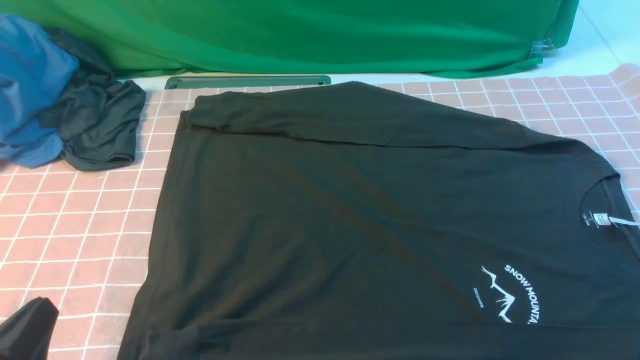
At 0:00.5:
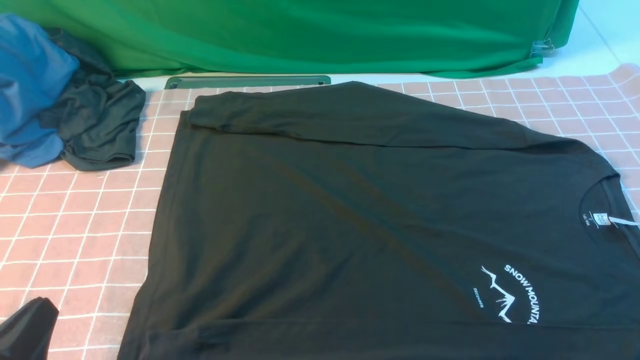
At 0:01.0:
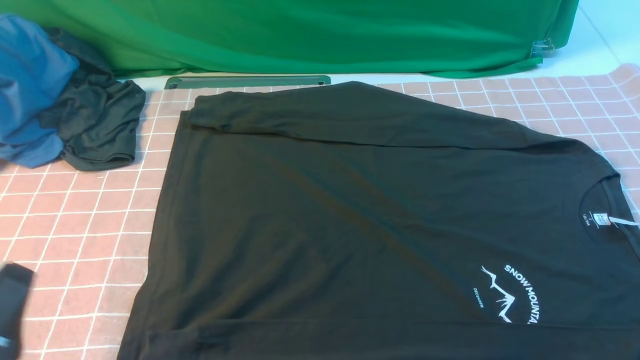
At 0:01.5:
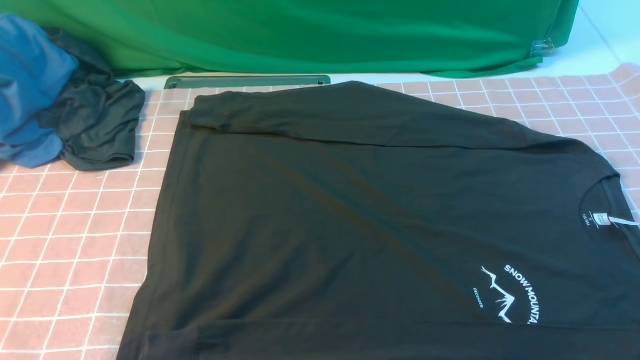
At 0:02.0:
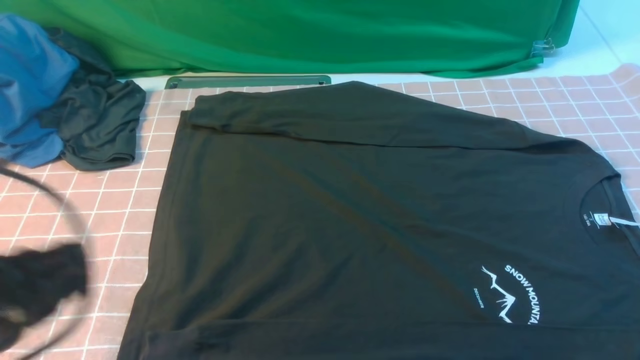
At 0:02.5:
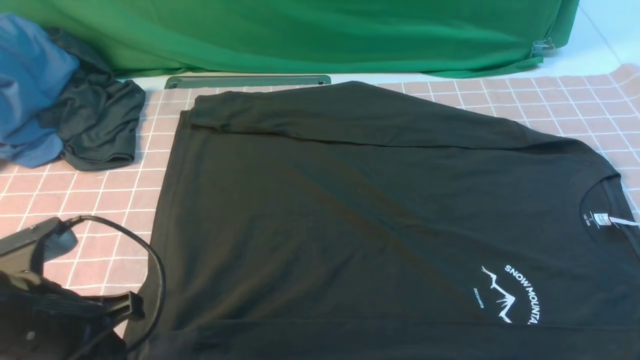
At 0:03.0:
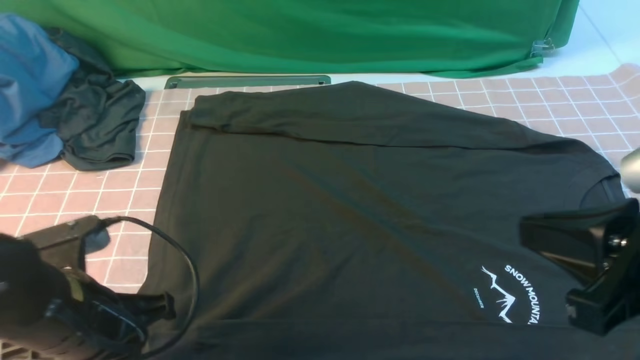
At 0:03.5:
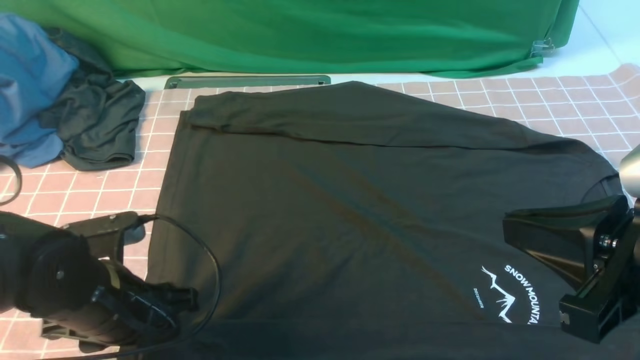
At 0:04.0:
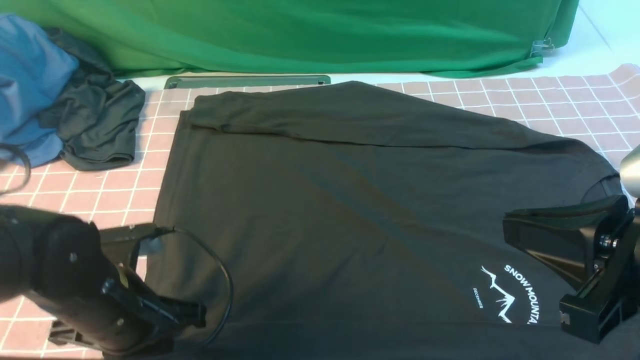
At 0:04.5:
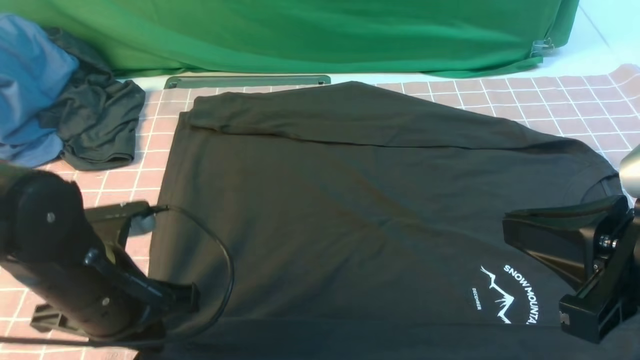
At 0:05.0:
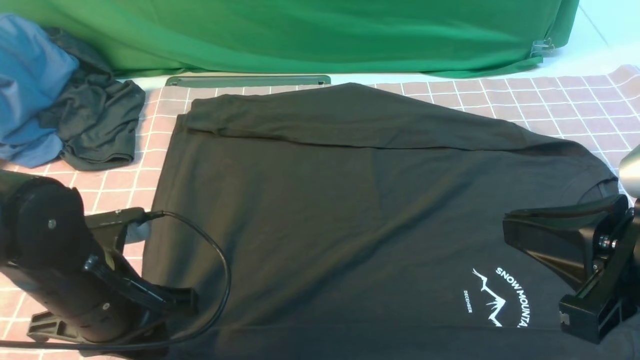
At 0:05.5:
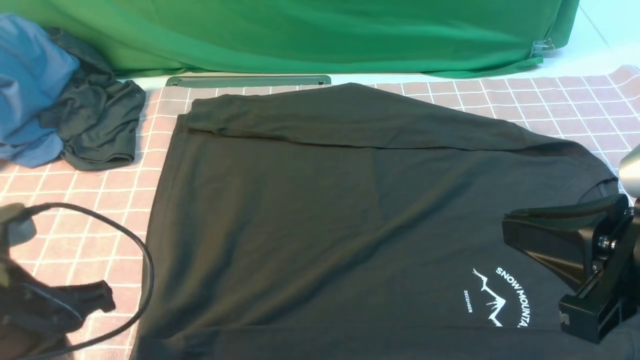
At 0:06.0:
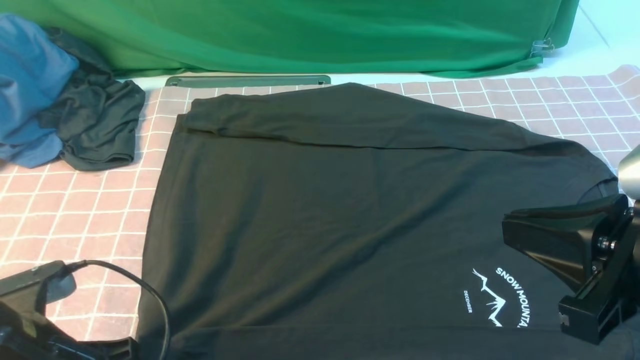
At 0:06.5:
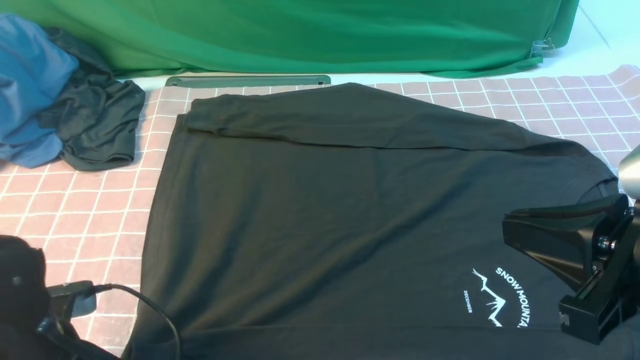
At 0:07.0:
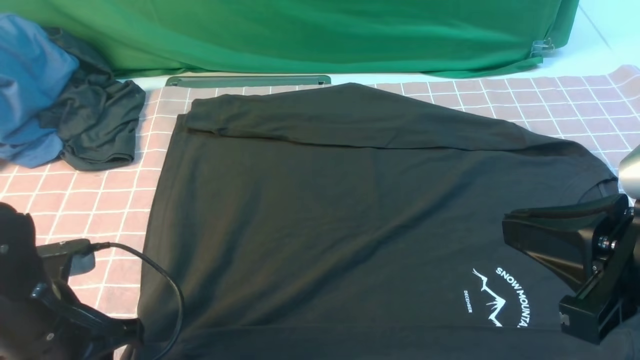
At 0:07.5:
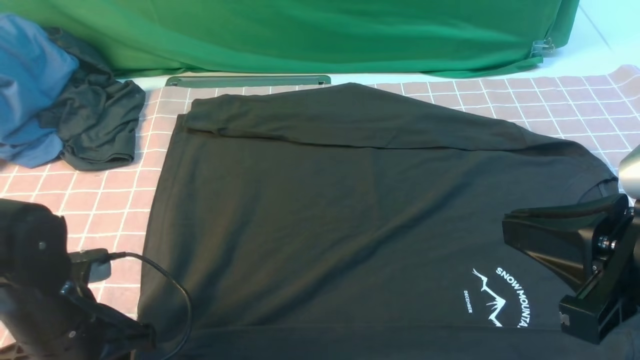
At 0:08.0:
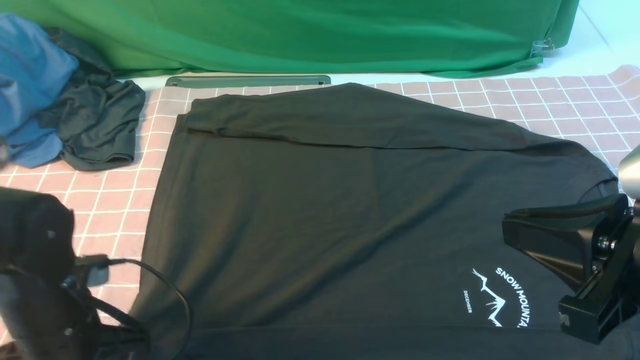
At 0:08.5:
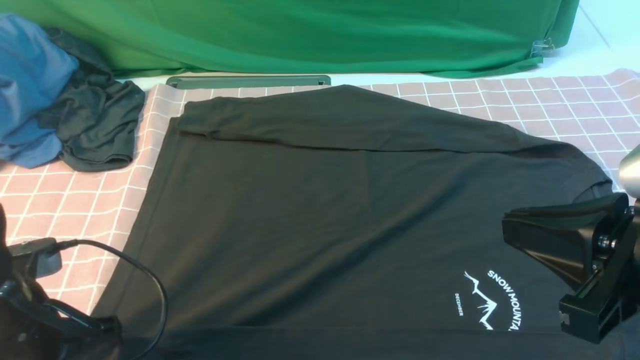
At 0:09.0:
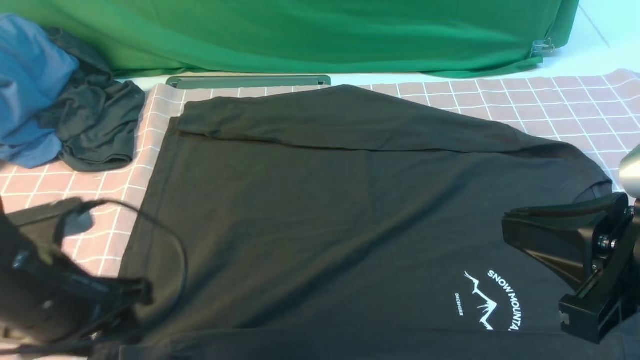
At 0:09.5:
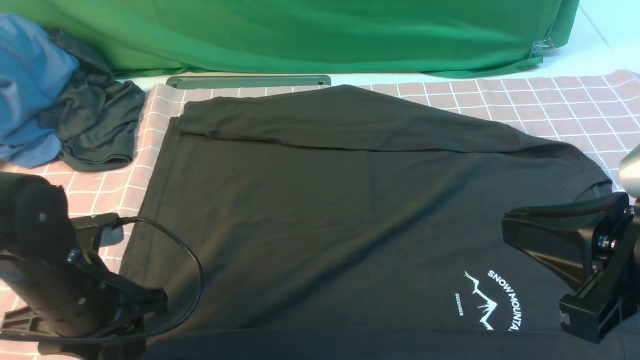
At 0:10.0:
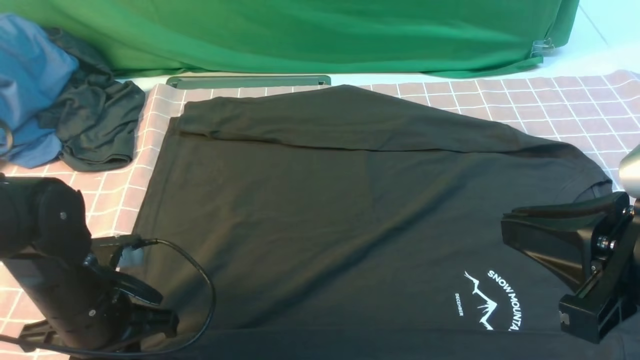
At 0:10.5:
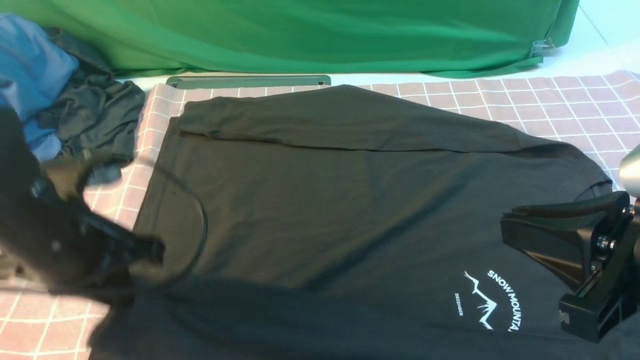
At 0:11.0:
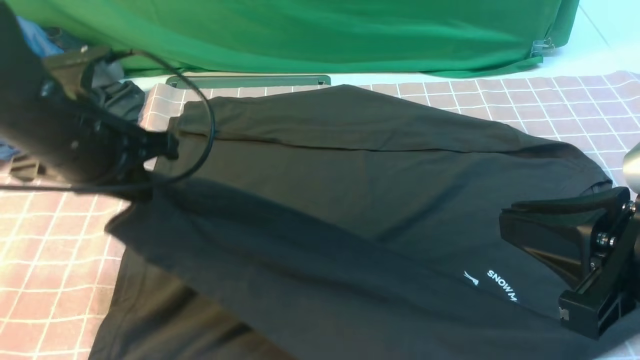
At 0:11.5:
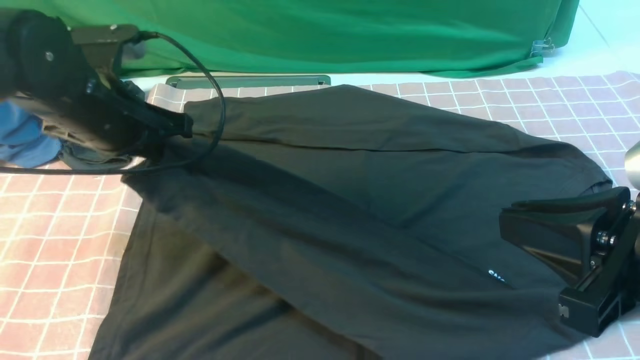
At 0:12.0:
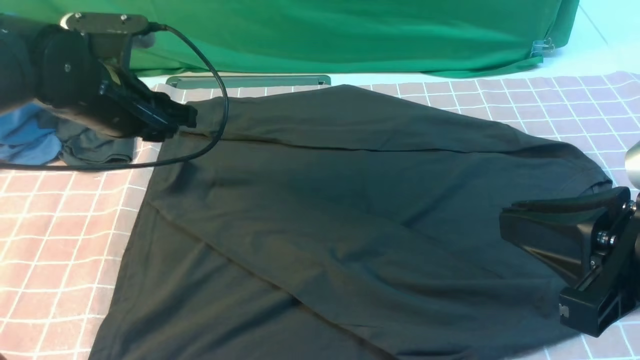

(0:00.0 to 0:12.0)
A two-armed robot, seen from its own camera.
Step, 0:00.0 - 0:10.0: use the left arm to clamp the cuff closest to it.
Step, 0:10.5 - 0:12.0: use the left arm to drag and place the cuff at the centered position on the left edge of the fabric.
0:00.0 - 0:02.0: The left gripper travels upward and forward by about 10 cm.
0:02.0 - 0:04.0: The right gripper travels to the left, forward and upward by some 15 cm. Meanwhile the left gripper is displaced downward and forward by approximately 15 cm, and opens, then closes once more.
0:04.0 - 0:06.0: The left gripper moves backward, some 5 cm.
0:06.0 - 0:08.0: The left gripper changes place by roughly 5 cm, and closes up.
0:08.0 - 0:10.0: The left gripper opens, then closes once more.
0:10.0 - 0:12.0: The left gripper goes some 15 cm forward and upward.

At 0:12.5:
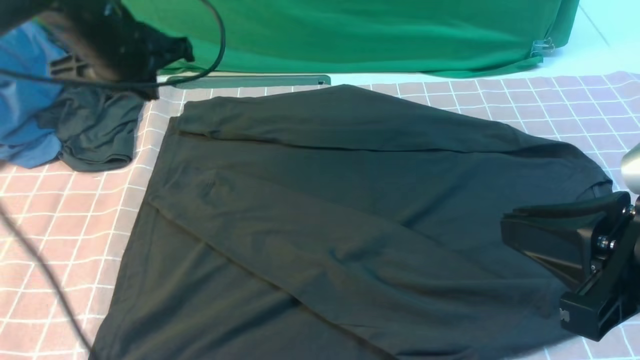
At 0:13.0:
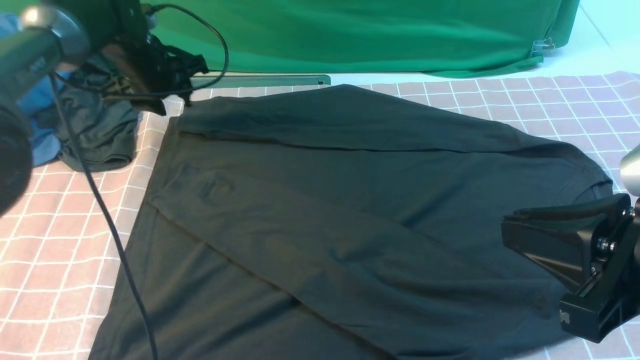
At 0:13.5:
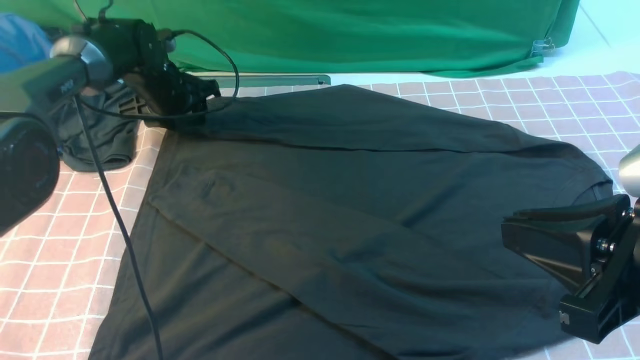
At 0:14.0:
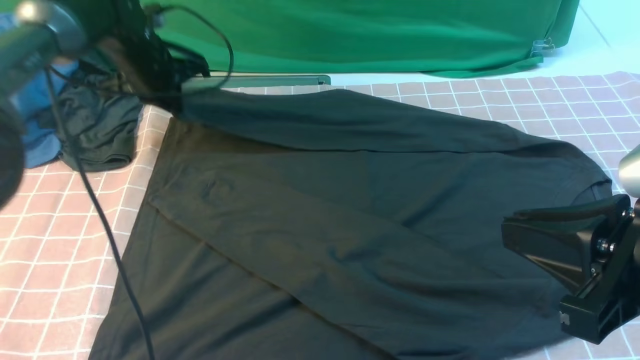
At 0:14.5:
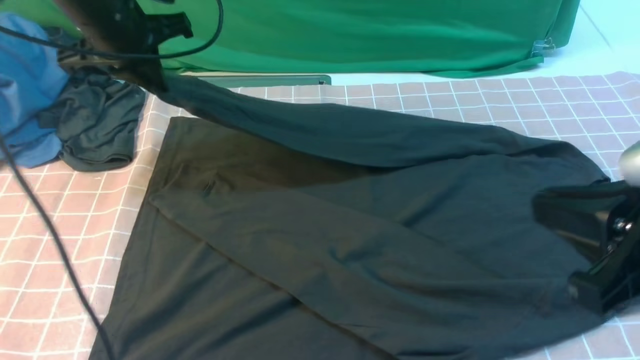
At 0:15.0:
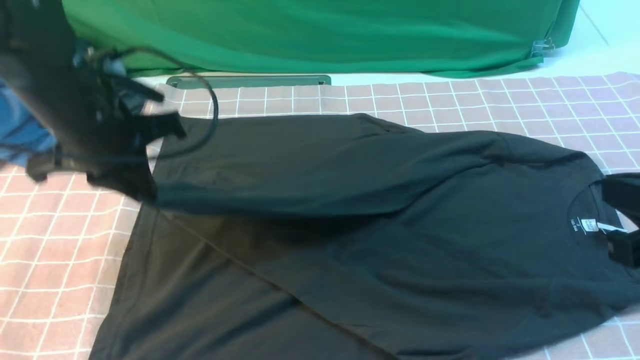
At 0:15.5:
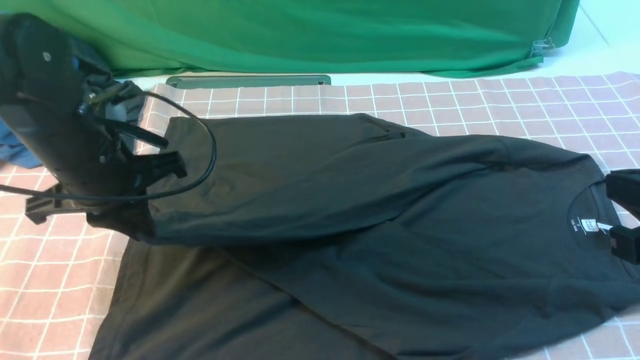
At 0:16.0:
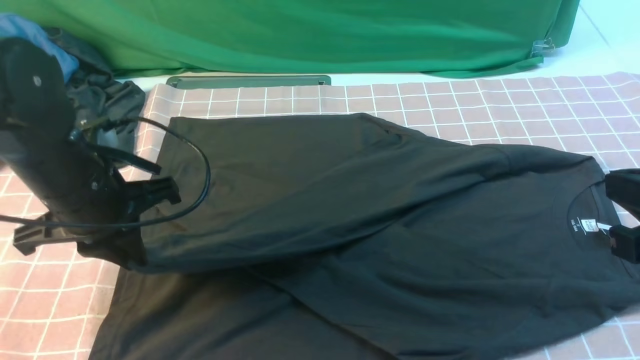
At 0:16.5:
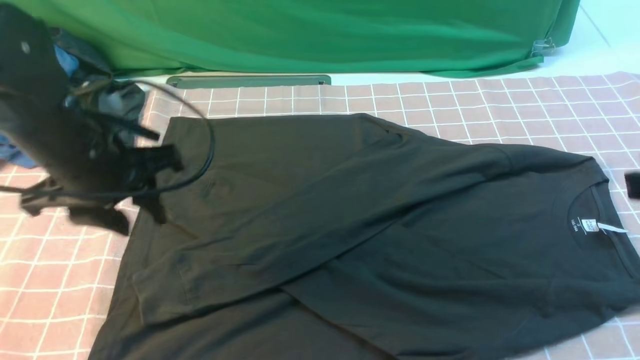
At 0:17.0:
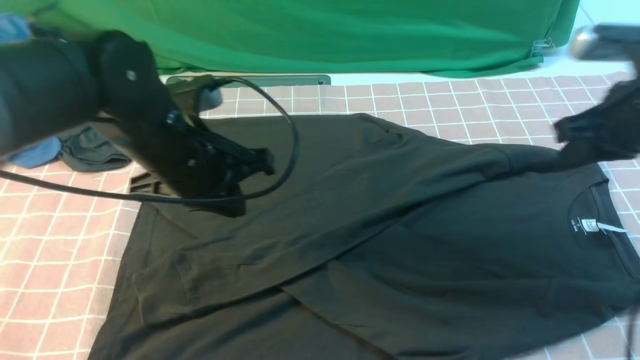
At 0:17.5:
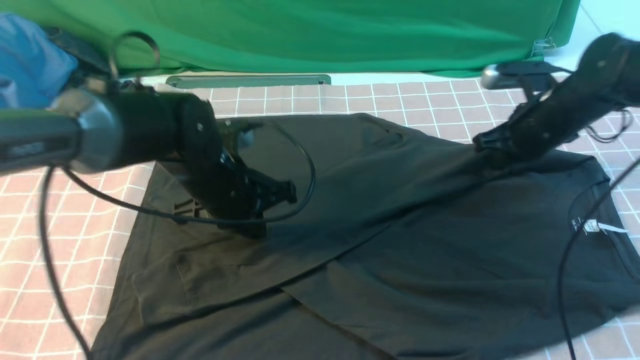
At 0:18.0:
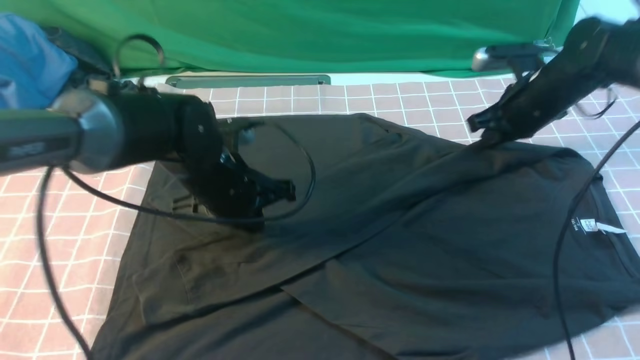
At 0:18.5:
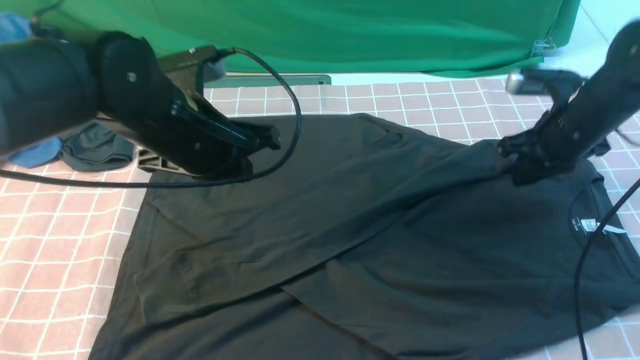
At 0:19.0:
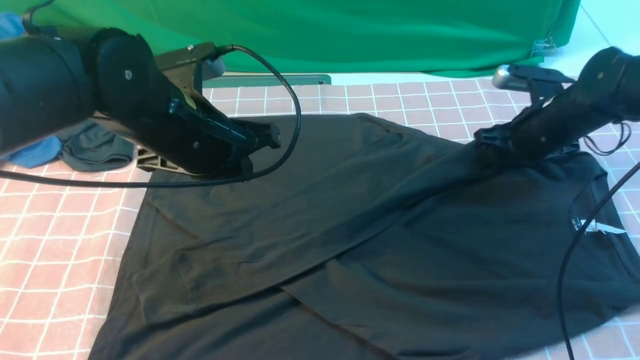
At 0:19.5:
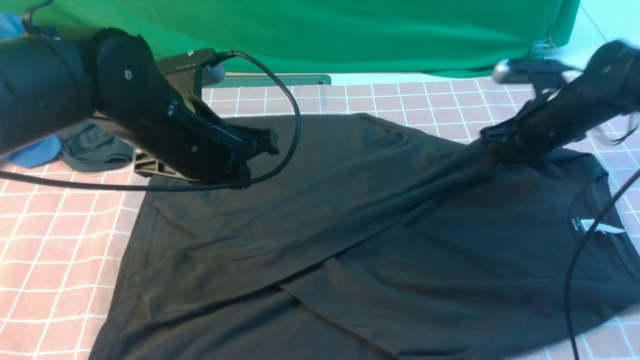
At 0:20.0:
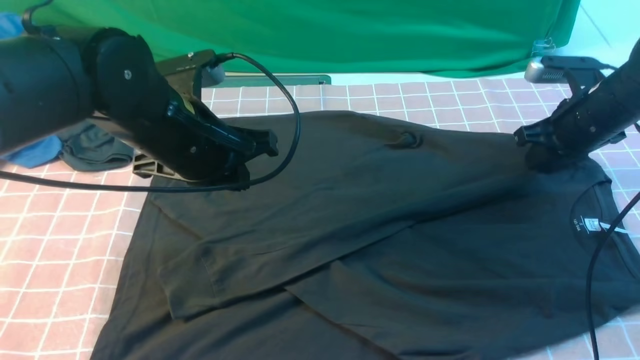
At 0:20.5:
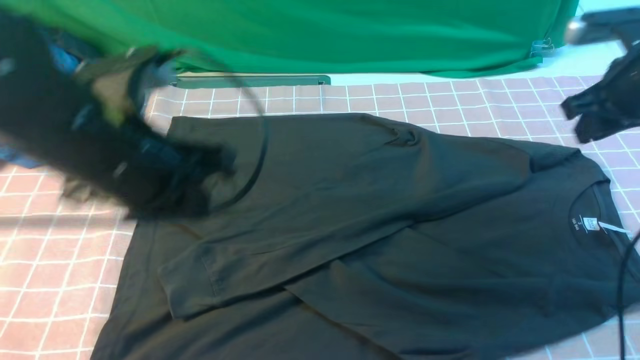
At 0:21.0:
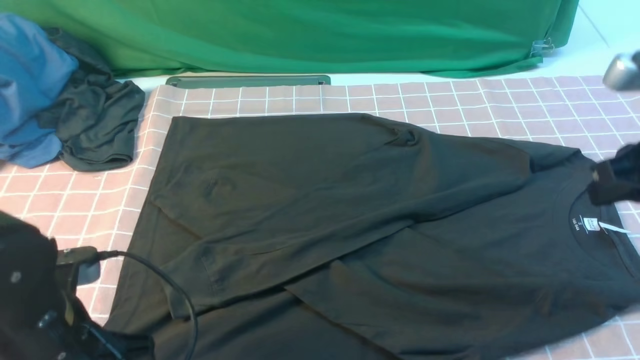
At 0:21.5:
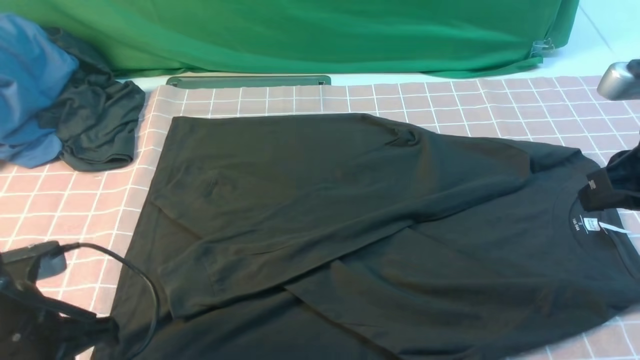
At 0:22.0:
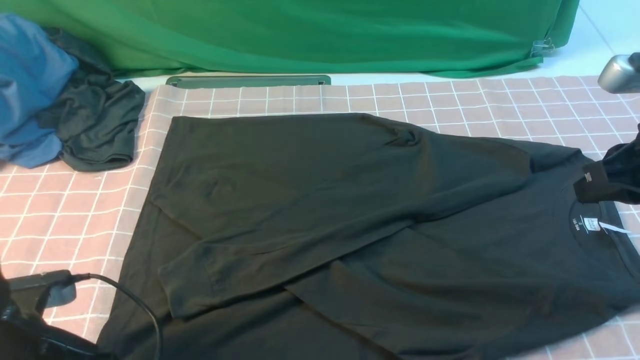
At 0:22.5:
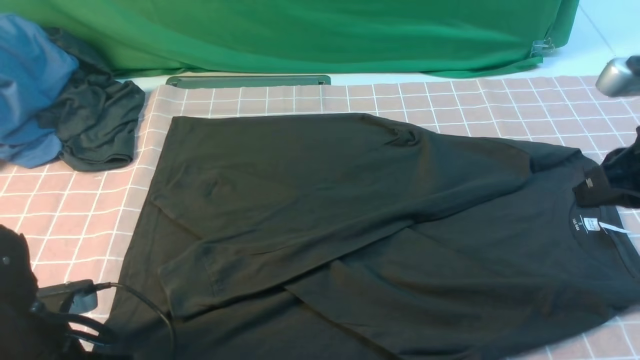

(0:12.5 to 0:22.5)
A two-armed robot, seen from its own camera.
Step, 0:12.5 - 0:13.5: use the left arm to clamp the cuff farthest from it.
Step, 0:14.0 - 0:16.0: use the left arm to drag and drop the cuff onto the cuff closest to the left arm.
0:12.5 - 0:14.5: The left gripper moves approximately 10 cm downward and comes back, and opens, then closes once more.
0:14.5 - 0:16.5: The right gripper heads forward, covering roughly 5 cm. The left gripper travels backward by roughly 15 cm, and opens.
0:16.5 - 0:18.5: The left gripper is displaced to the right by some 5 cm, goes downward and returns, approximately 10 cm each way, and closes; the right gripper moves forward and downward, about 25 cm, and opens its fingers.
0:18.5 - 0:20.5: The right gripper heads upward and backward, covering roughly 10 cm; the left gripper is displaced backward by roughly 10 cm.
0:20.5 - 0:22.5: The left gripper shifts some 15 cm downward, to the left and backward, and opens, then closes once more; the right gripper is displaced backward by roughly 10 cm, and closes its fingers.
